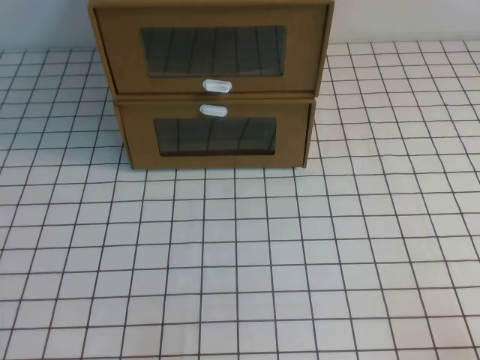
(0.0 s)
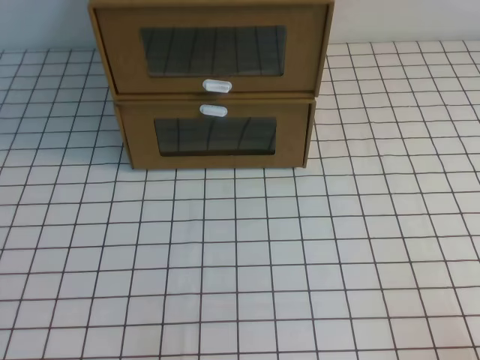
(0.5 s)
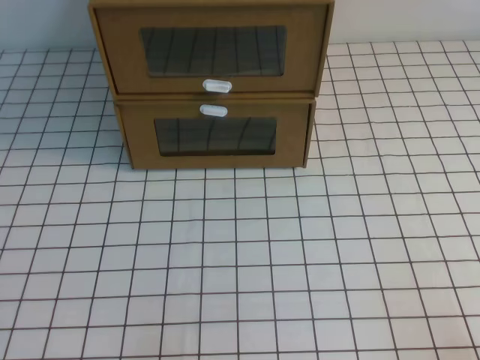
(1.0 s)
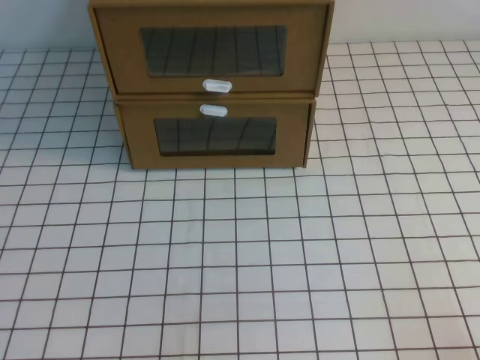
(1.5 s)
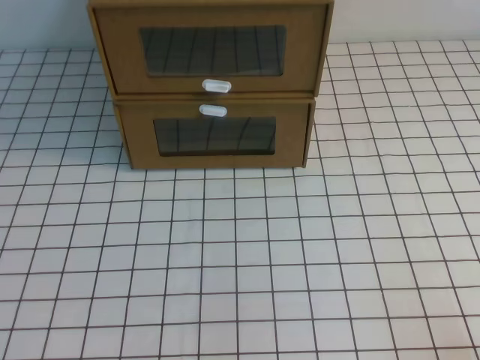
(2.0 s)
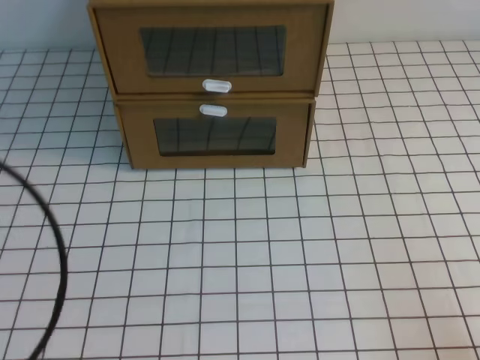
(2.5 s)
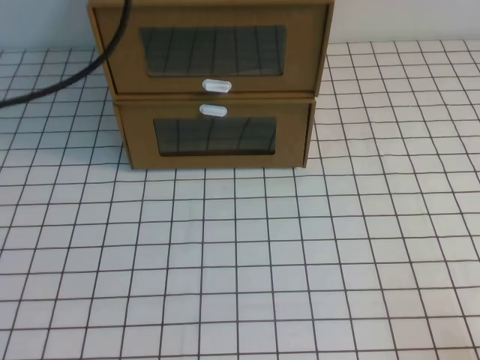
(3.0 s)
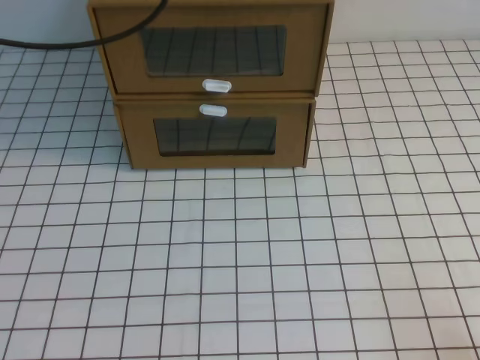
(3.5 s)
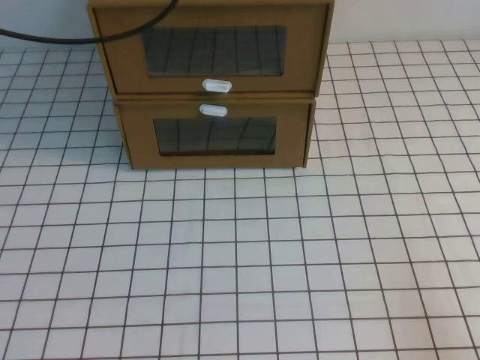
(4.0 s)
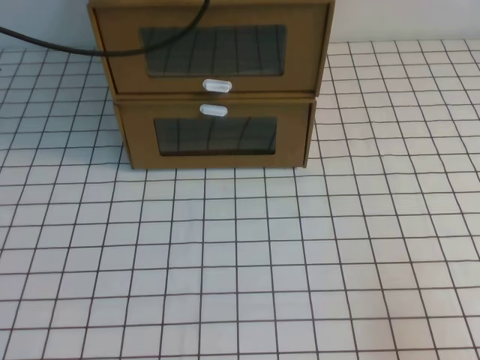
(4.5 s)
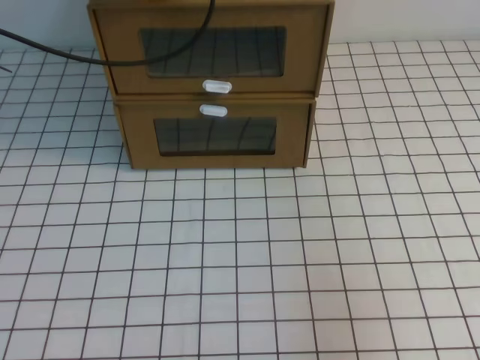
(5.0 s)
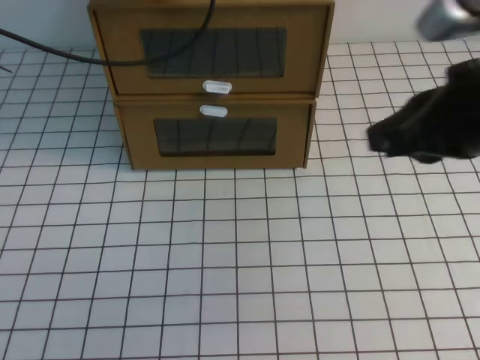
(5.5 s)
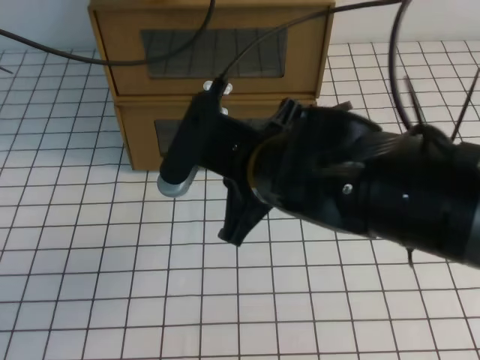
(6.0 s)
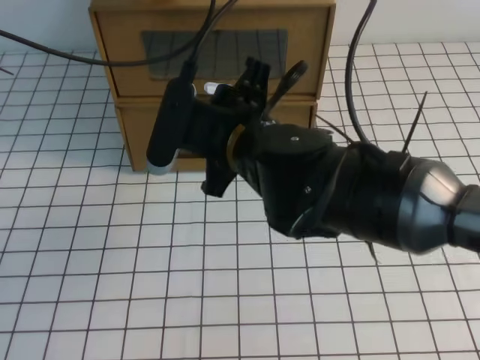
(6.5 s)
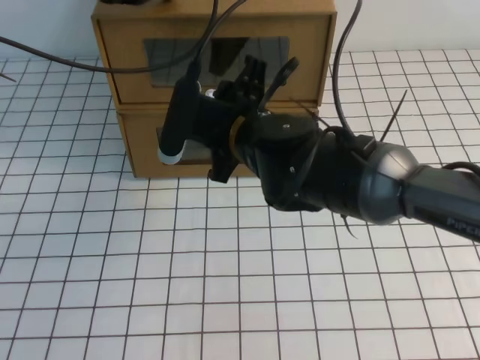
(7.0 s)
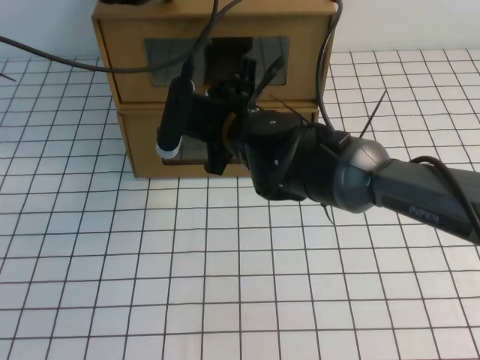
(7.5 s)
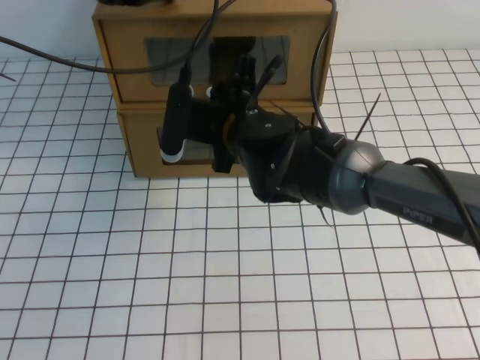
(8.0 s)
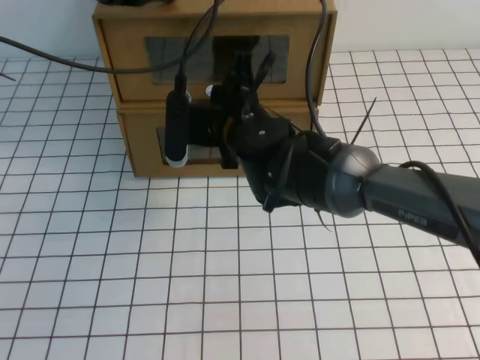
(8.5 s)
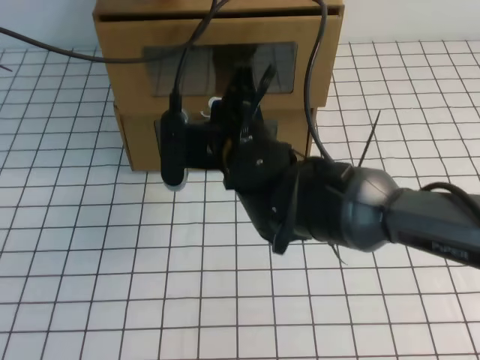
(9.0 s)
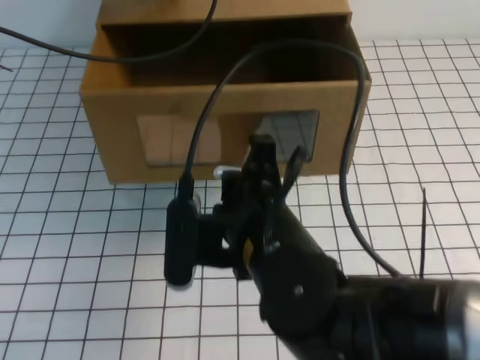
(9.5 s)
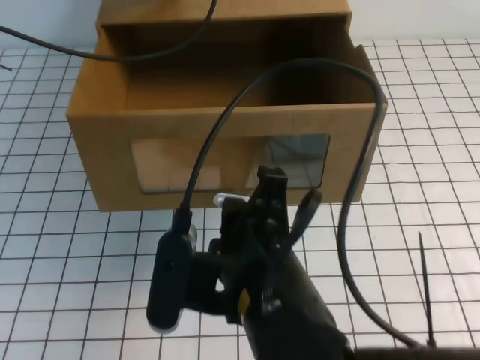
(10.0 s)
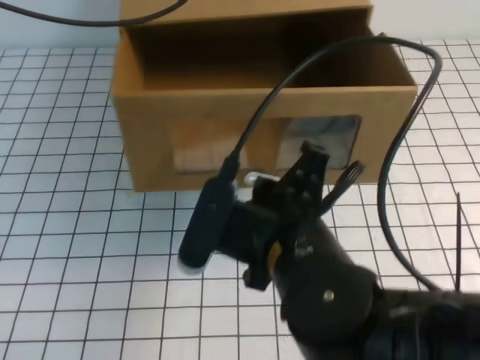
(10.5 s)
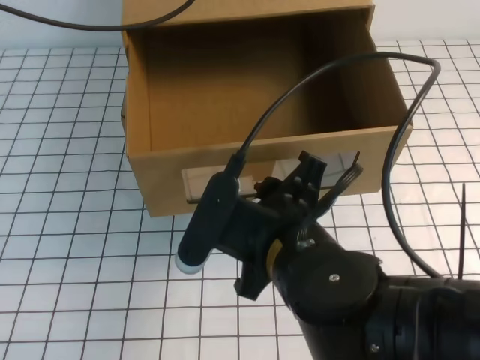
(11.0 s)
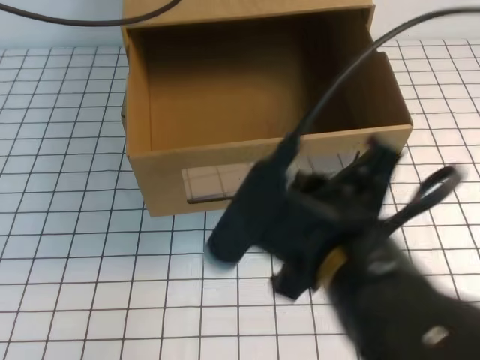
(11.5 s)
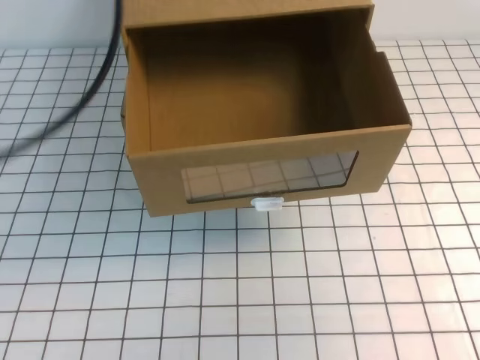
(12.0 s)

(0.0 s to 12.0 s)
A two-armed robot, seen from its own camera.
Task of the whole recording: open the shoebox on the white tablecloth.
4.0 s - 6.0 s: The right gripper shifts about 35 cm to the left, forward and upward. Meanwhile the left gripper shifts by roughly 5 cm.
6.0 s - 8.0 s: The right gripper goes approximately 15 cm forward and downward, and opens its fingers.
8.0 s - 10.0 s: The right gripper shifts some 20 cm backward, and closes up.
10.0 s - 12.0 s: The right gripper is displaced to the right and upward by about 25 cm, and opens, then closes once more. Meanwhile the left gripper travels backward and upward by roughly 25 cm.

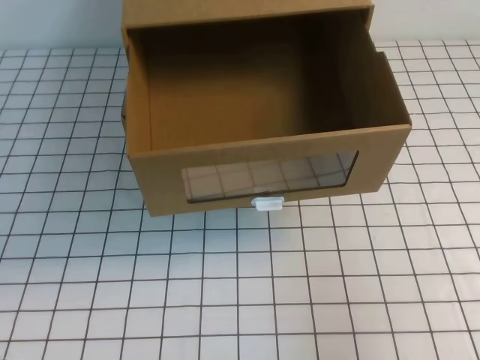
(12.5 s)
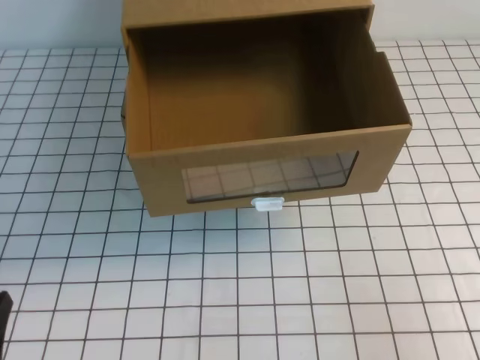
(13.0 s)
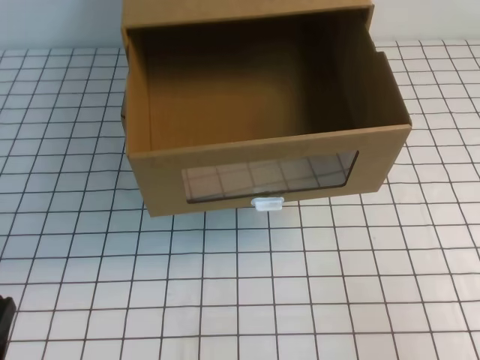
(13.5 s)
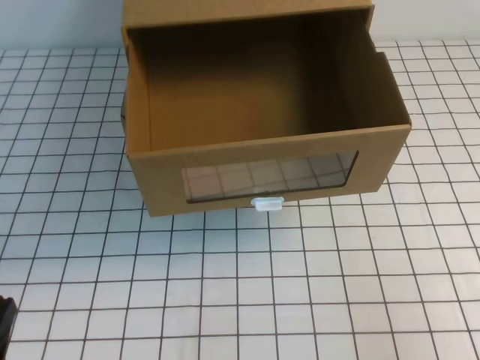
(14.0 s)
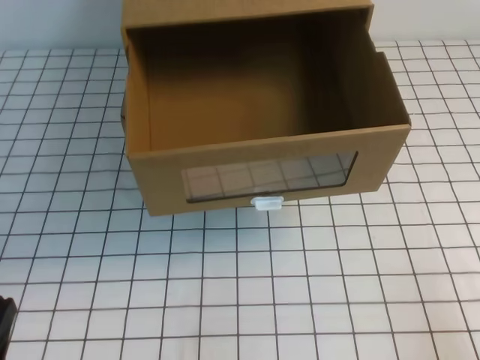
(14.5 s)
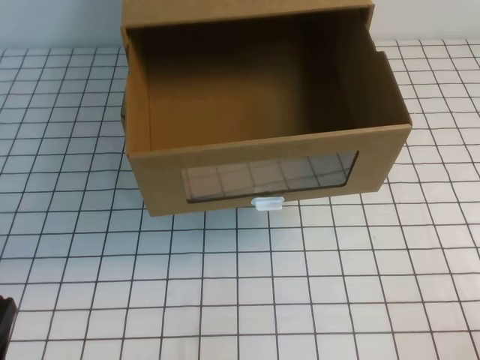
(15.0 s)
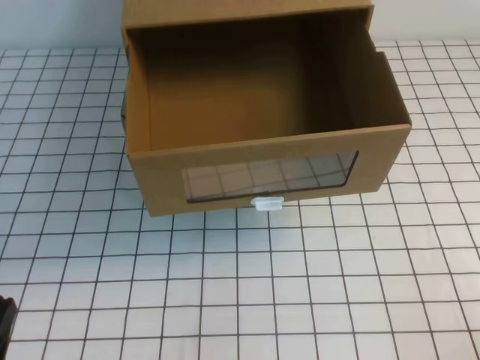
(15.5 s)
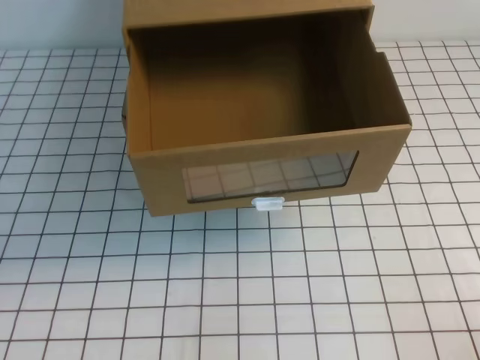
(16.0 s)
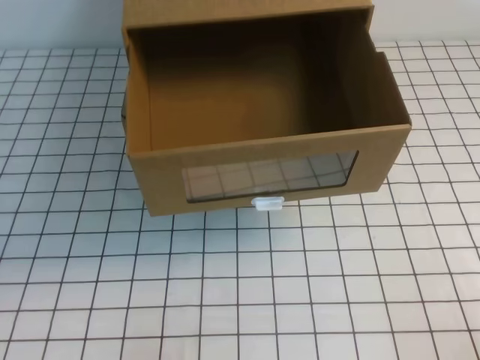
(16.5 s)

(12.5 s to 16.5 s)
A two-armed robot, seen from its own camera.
Task of the whole recording: open the shoebox on the white tablecloth.
12.5 s - 14.5 s: The left gripper goes some 20 cm downward; the right gripper travels downward and backward by roughly 15 cm.

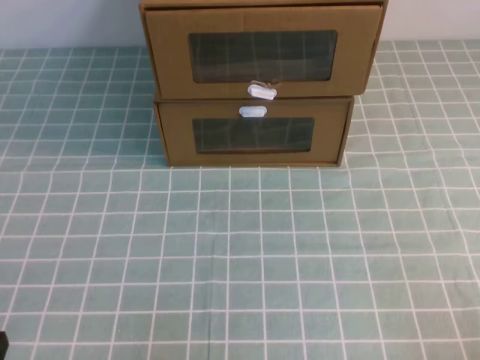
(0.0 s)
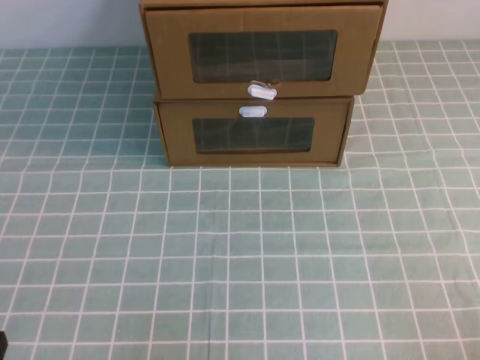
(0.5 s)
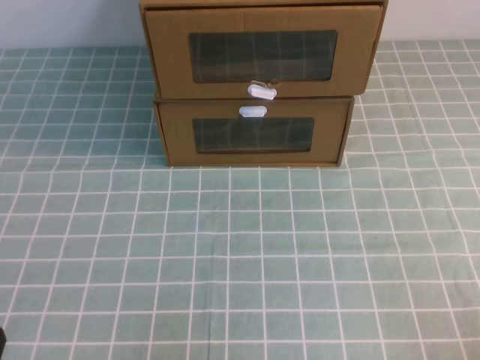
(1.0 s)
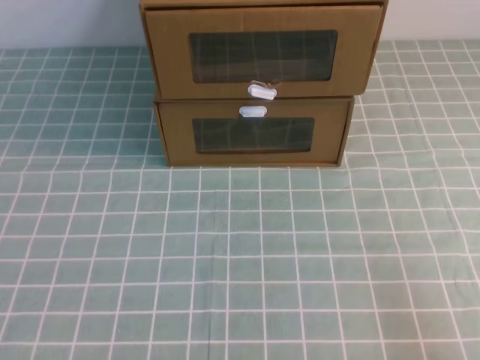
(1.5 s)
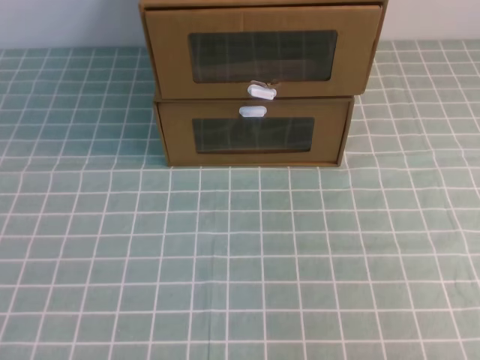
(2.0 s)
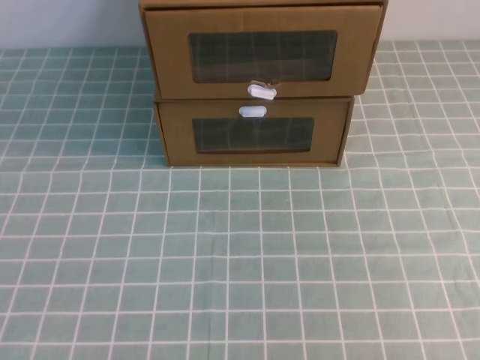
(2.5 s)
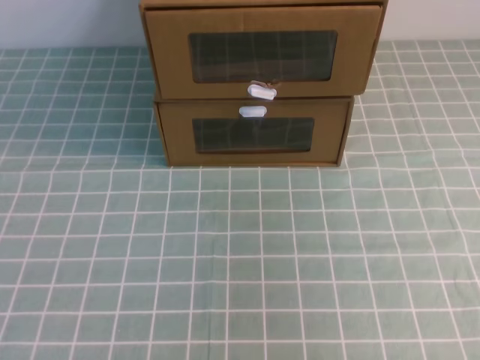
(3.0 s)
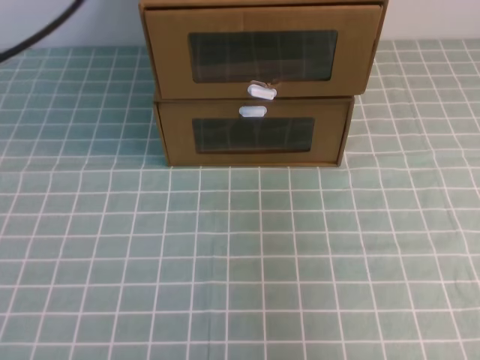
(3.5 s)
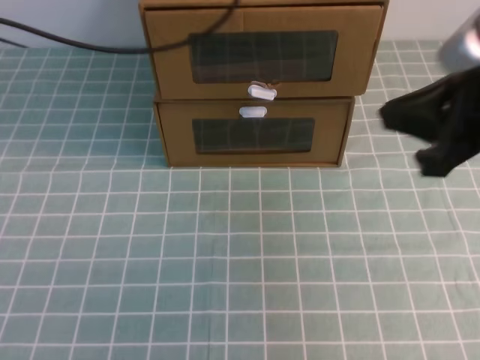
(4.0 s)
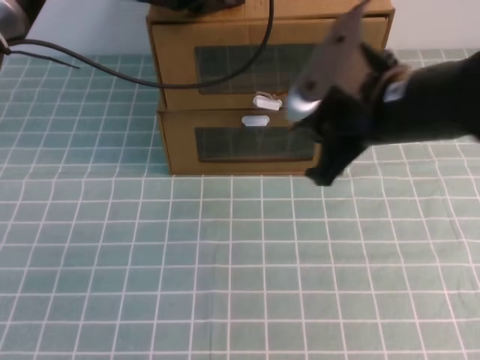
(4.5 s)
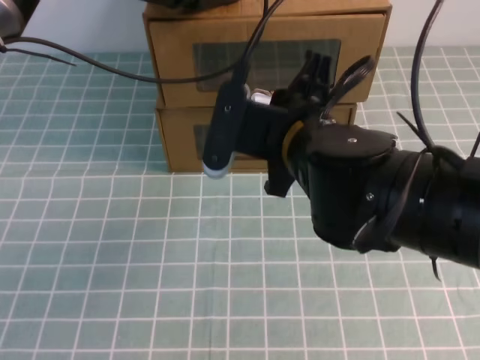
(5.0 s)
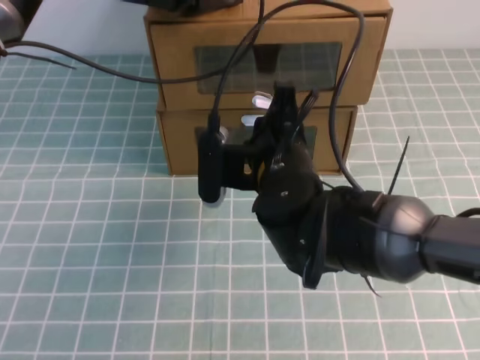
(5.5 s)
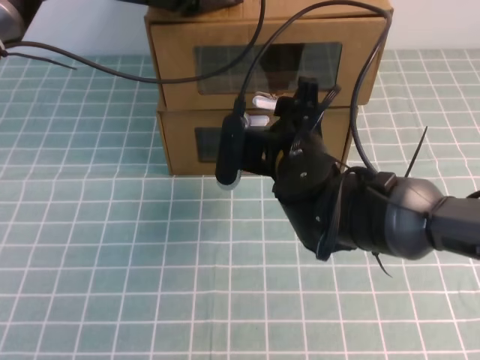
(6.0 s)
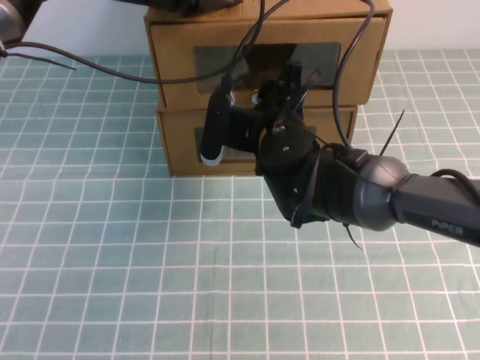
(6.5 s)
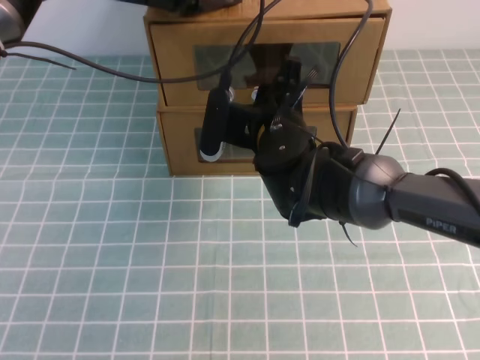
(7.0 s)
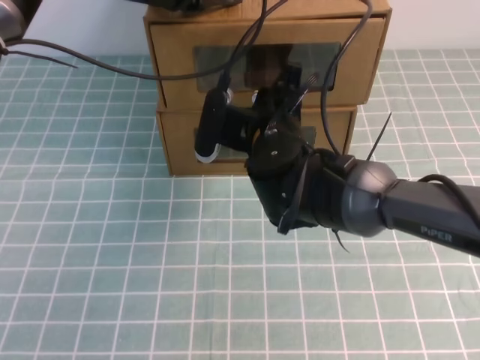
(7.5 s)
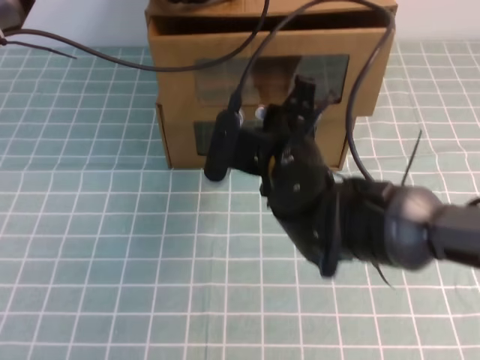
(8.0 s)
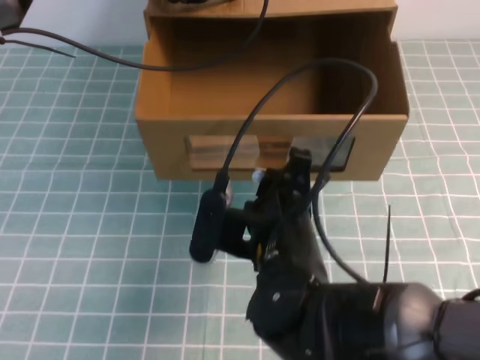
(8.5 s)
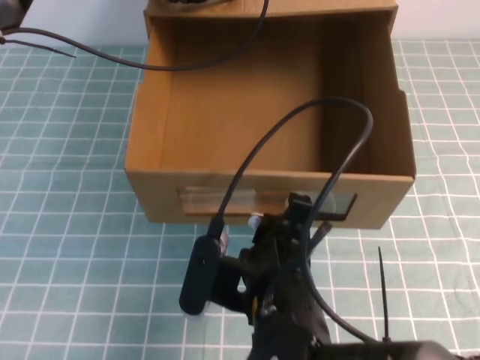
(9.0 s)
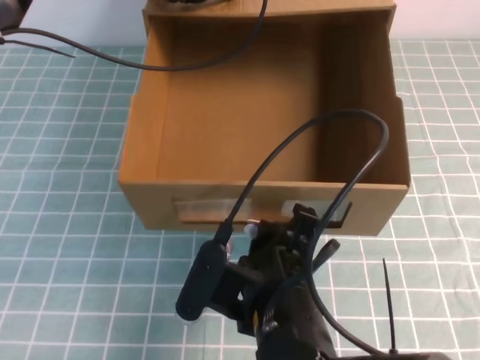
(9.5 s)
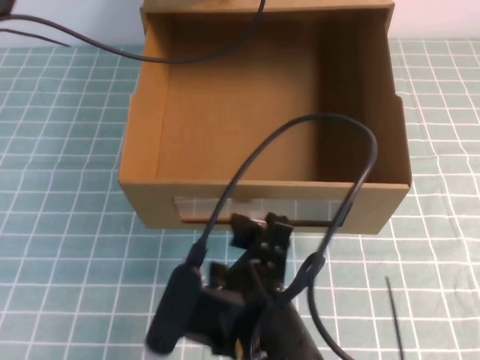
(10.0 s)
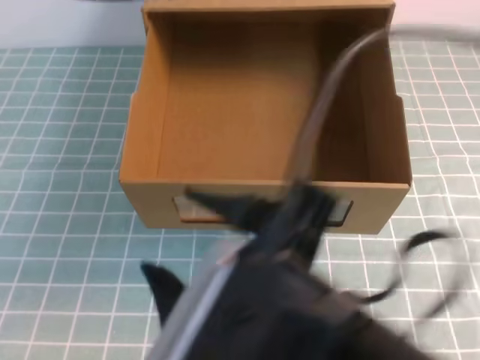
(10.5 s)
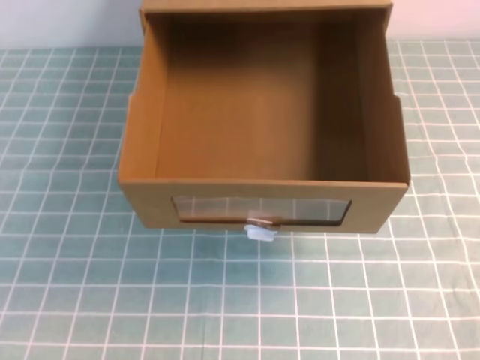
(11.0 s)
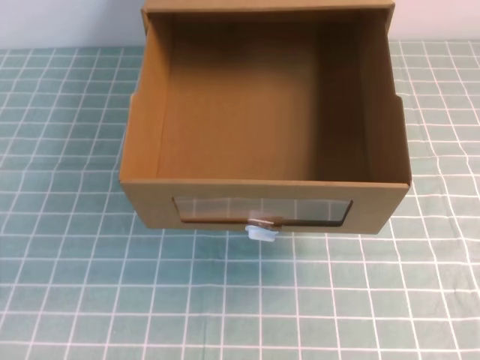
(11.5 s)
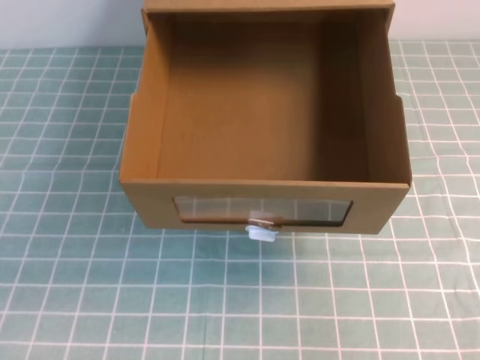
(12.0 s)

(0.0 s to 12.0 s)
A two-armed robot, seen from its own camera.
Task of the whole recording: open the shoebox on the cyan tablecloth.
2.0 s - 4.0 s: The left gripper is displaced forward by some 40 cm. Meanwhile the right gripper goes about 25 cm forward and upward.
4.0 s - 6.0 s: The right gripper is displaced to the left, downward and forward by approximately 25 cm, and opens its fingers. Meanwhile the left gripper travels downward by roughly 5 cm.
6.0 s - 8.0 s: The right gripper closes.
8.0 s - 10.0 s: The right gripper is displaced backward by approximately 15 cm, and opens its fingers.
10.0 s - 12.0 s: The right gripper heads to the right, covering some 30 cm, and closes its fingers; the left gripper heads backward, covering roughly 40 cm.
